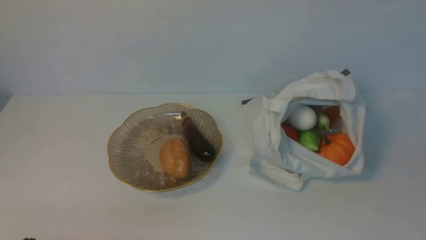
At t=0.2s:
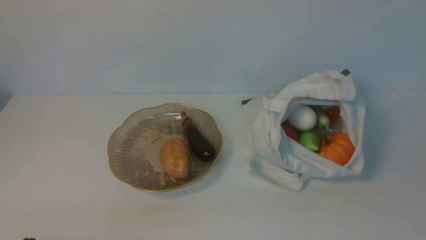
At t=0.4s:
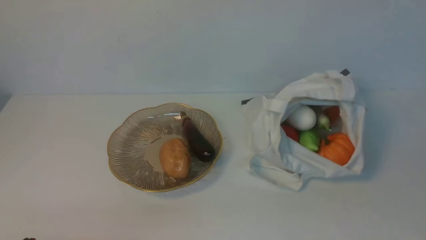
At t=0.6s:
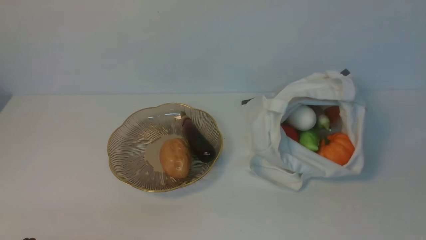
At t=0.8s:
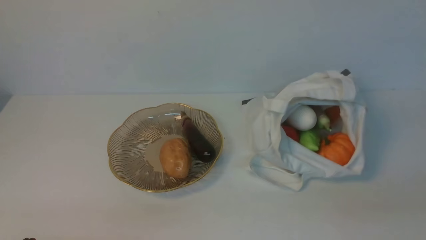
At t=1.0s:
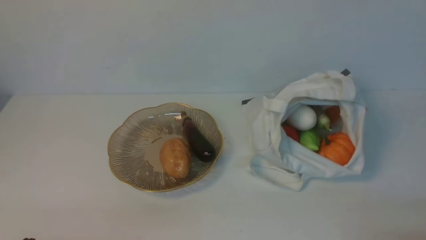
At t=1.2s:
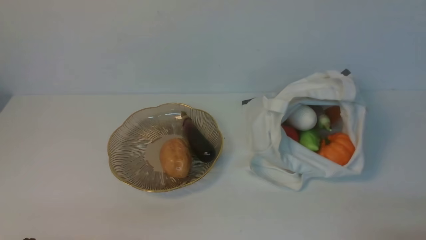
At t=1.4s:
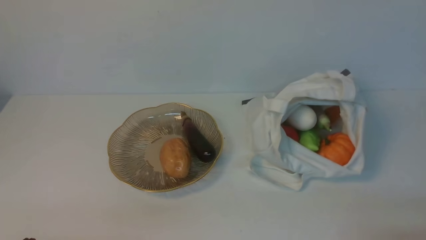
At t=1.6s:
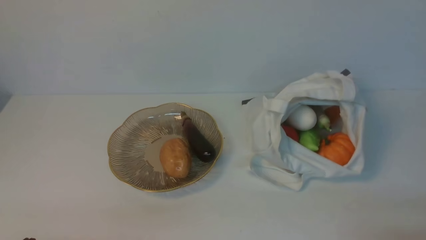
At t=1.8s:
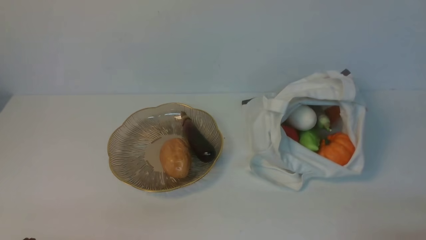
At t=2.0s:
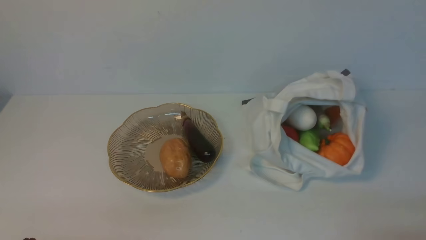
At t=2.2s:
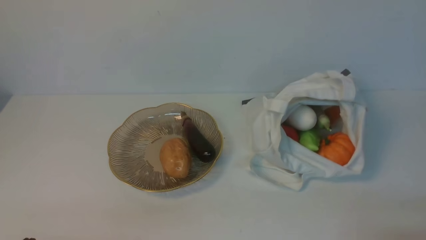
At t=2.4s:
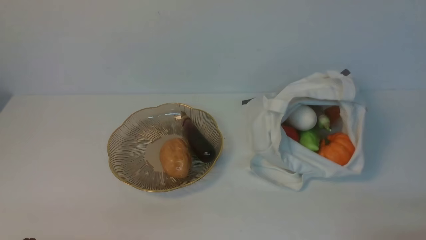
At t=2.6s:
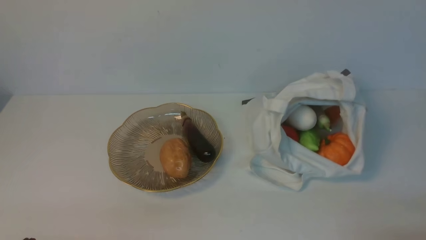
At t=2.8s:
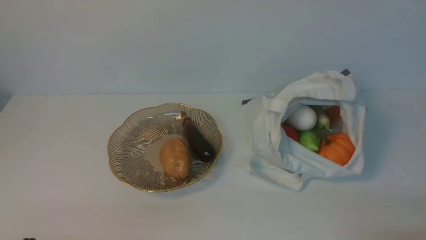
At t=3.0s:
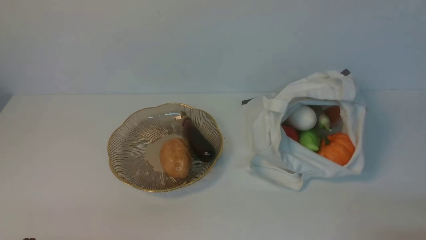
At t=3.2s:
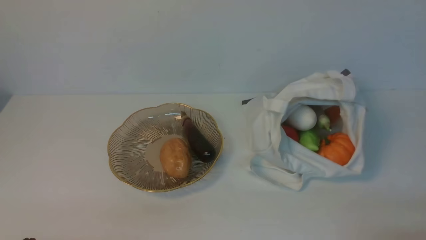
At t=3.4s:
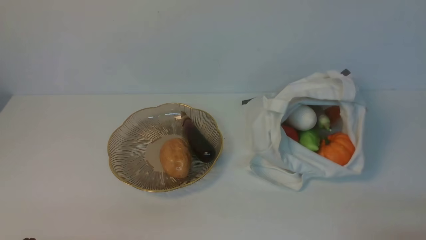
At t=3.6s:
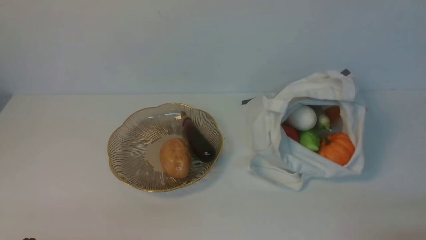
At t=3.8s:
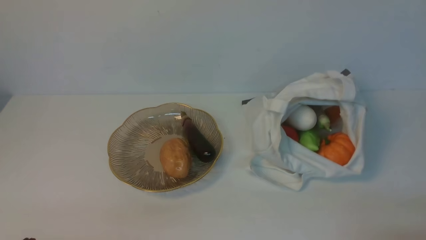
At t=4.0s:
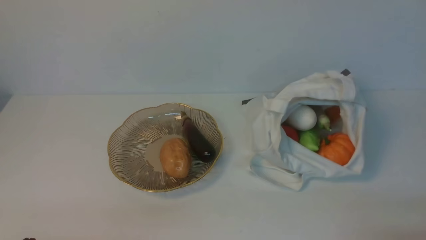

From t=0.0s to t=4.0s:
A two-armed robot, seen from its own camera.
Task of the whole recording: take vegetables from cloth bag on white table place on plate.
From t=1.4s to t=4.0s: Neither gripper changes place.

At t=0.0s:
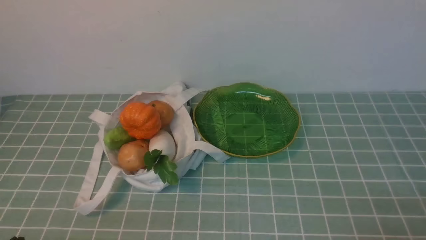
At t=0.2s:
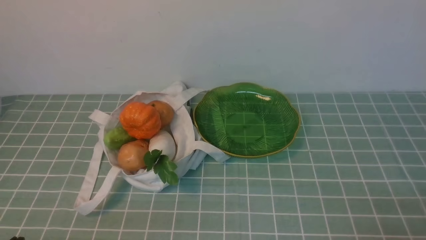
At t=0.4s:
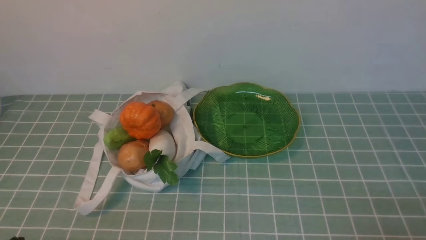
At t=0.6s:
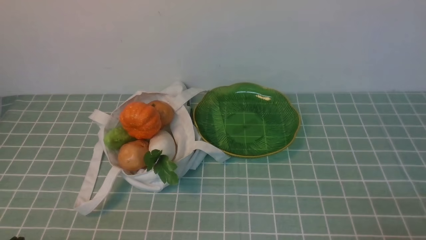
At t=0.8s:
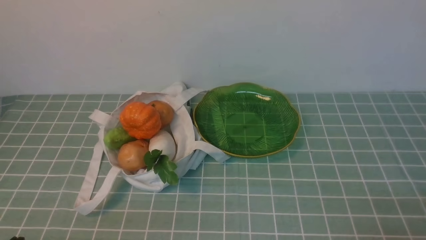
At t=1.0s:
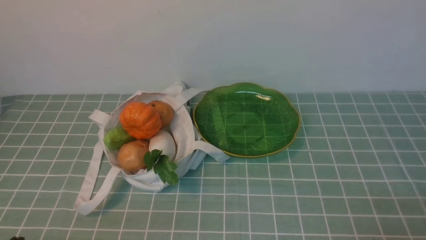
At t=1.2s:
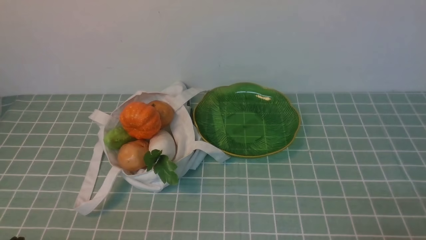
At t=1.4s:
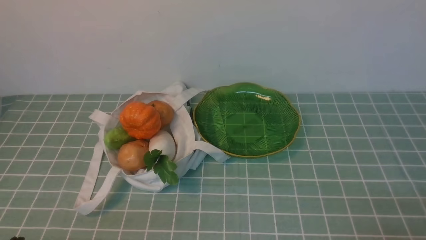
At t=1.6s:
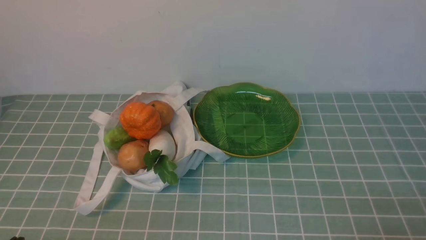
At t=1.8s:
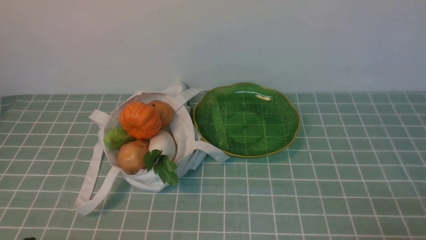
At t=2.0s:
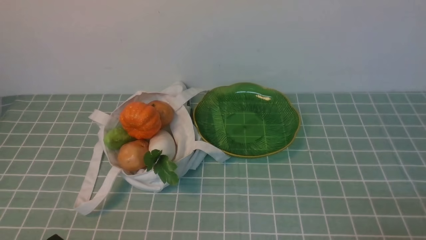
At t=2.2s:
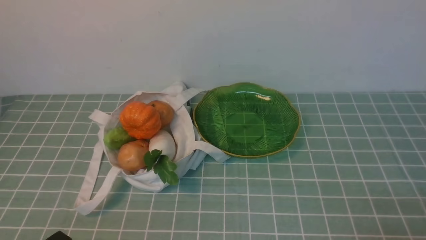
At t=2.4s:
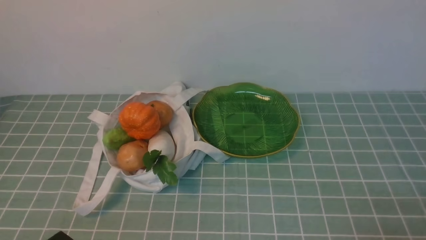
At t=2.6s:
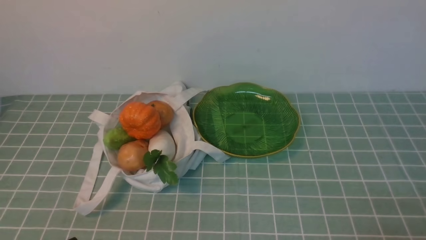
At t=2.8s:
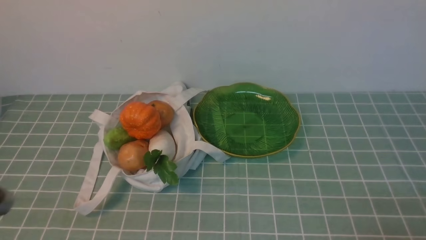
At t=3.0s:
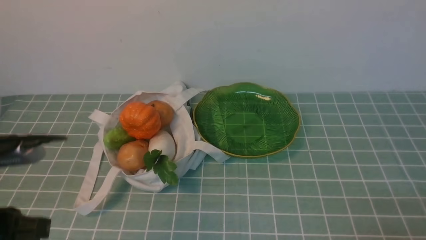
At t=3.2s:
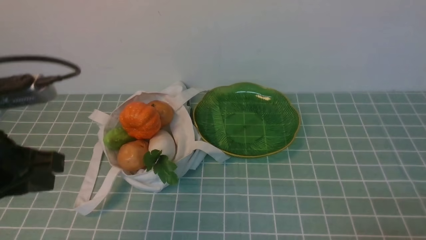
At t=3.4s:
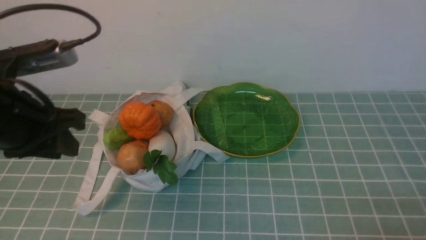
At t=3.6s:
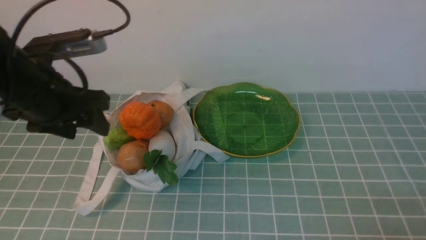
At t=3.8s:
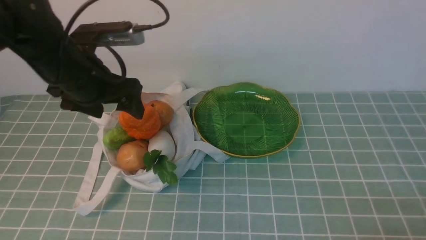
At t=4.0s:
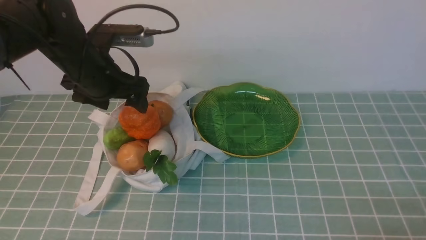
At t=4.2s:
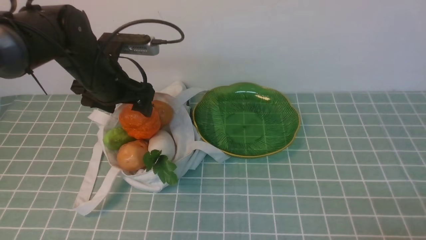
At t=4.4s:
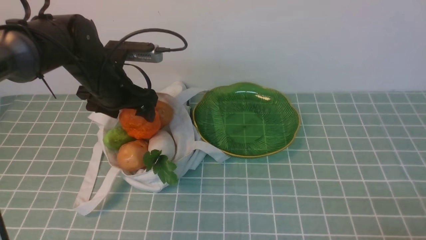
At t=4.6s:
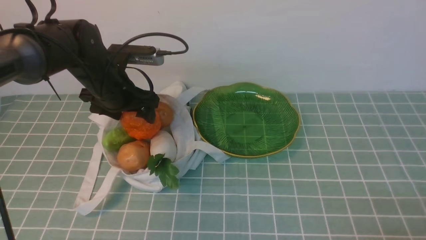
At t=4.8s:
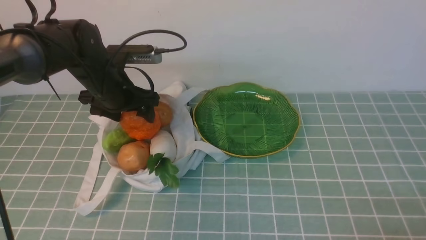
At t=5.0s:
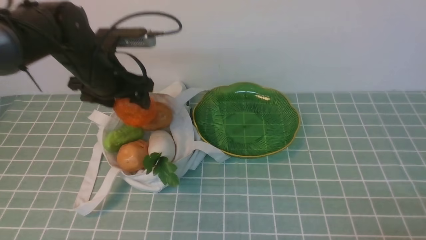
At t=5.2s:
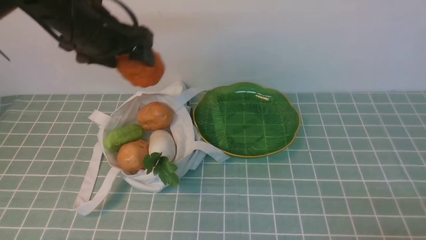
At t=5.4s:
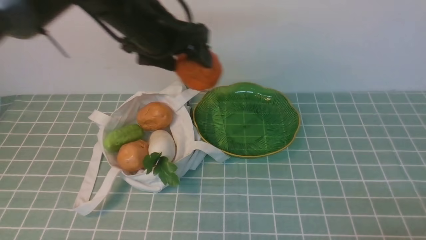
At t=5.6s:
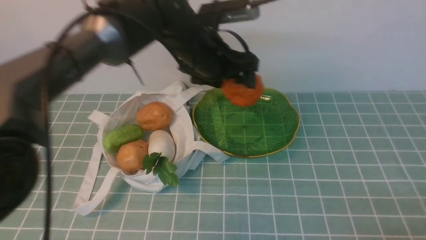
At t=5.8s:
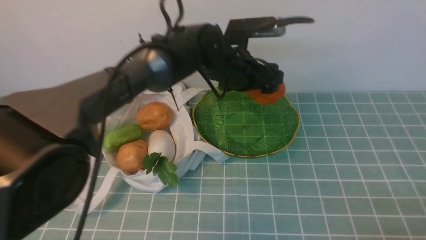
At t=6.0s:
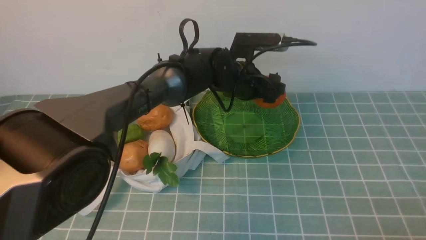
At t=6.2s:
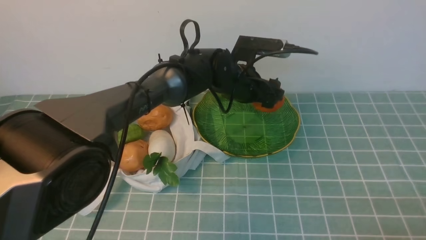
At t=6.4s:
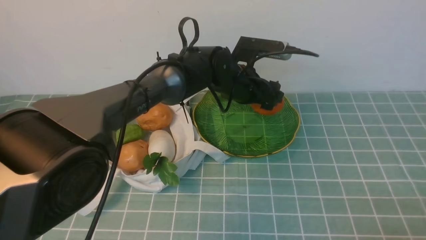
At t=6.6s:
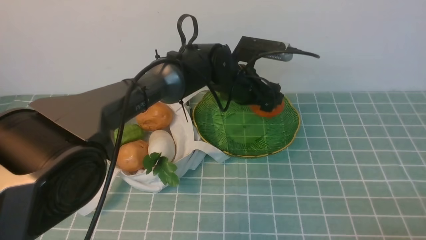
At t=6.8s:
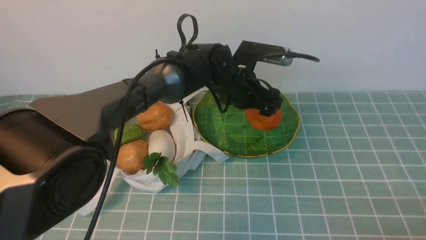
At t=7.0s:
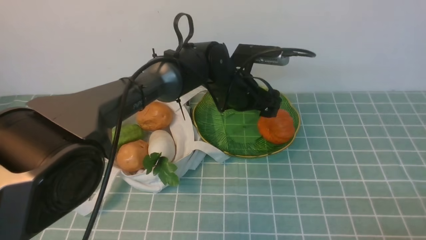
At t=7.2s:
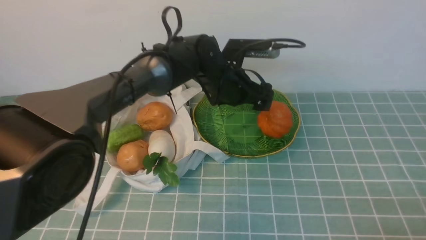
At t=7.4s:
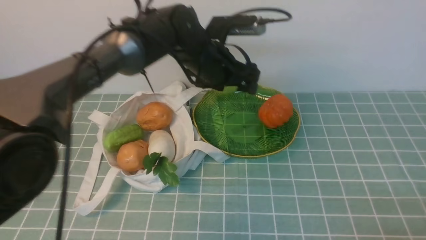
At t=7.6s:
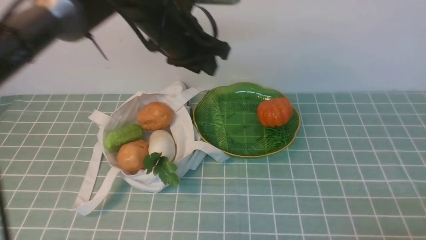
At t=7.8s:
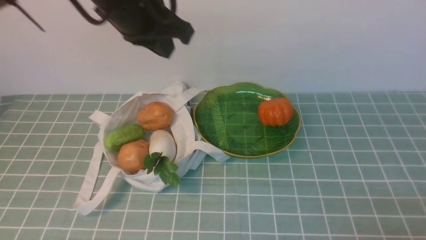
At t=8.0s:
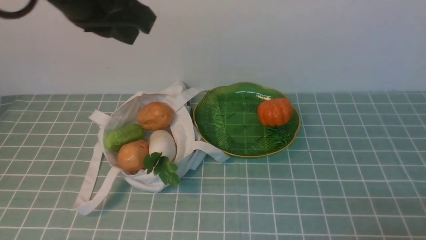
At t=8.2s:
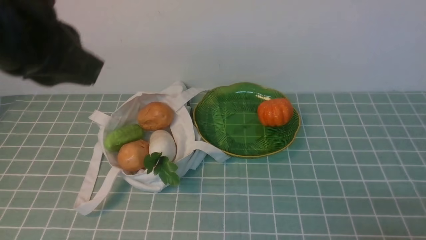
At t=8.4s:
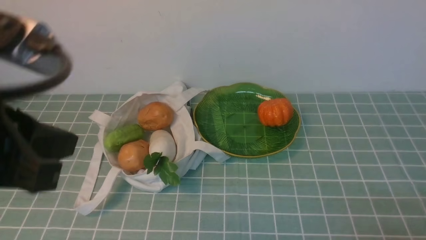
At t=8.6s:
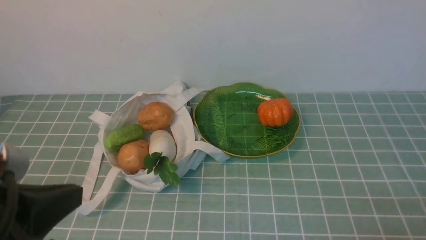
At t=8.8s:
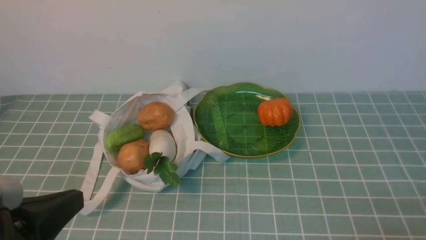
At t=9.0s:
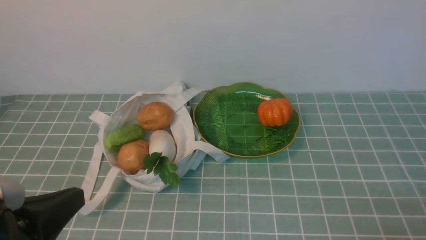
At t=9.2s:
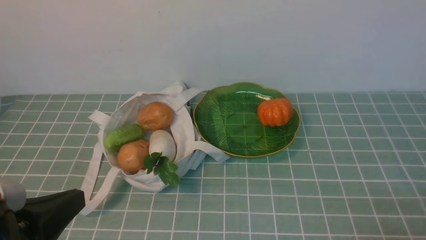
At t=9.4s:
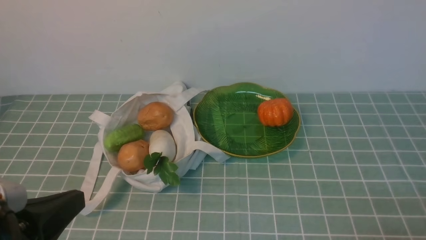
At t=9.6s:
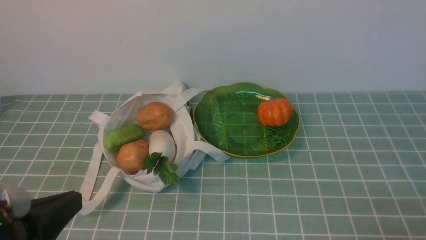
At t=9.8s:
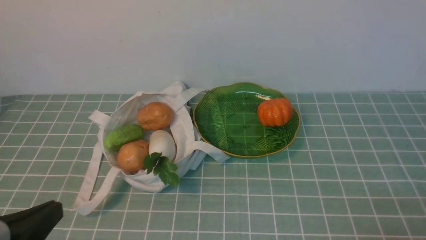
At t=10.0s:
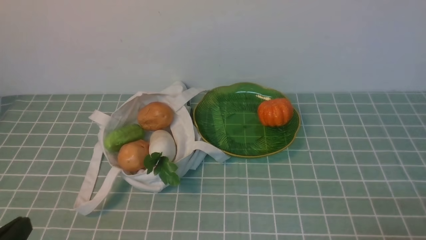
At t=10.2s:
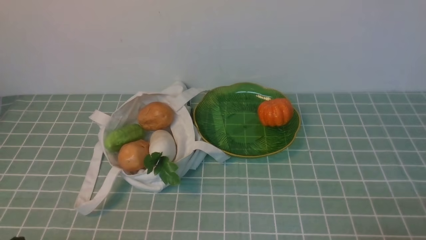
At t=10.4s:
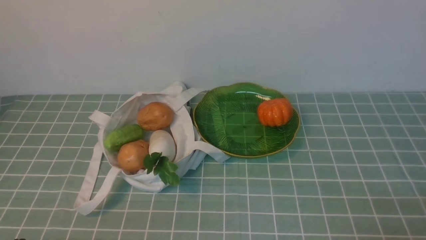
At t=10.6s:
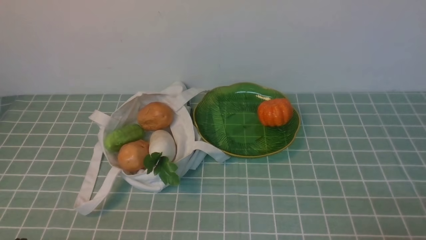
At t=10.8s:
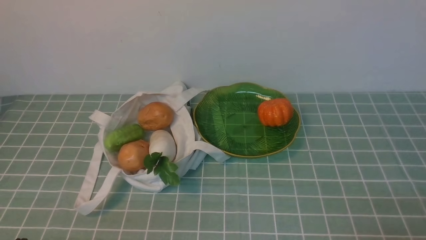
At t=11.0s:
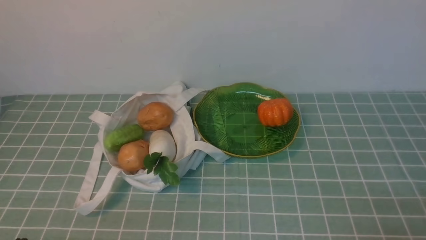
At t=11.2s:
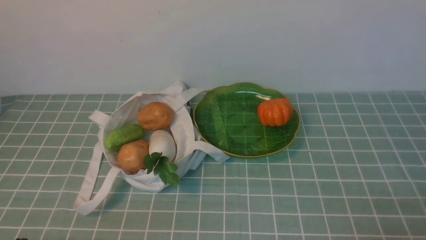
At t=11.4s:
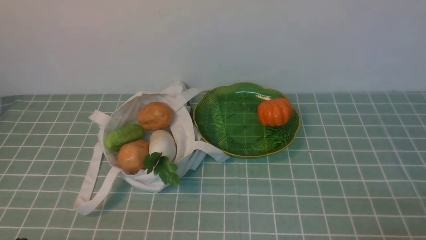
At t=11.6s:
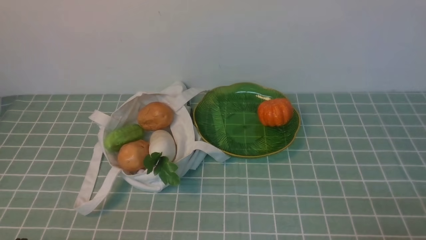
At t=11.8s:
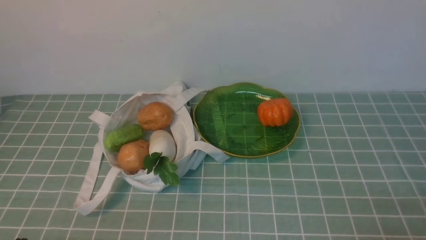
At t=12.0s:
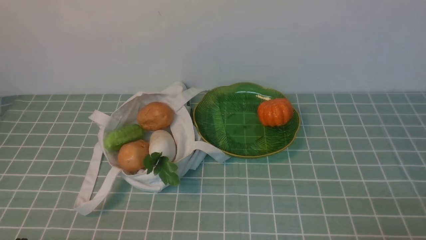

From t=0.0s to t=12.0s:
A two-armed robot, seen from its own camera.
Task of the whole recording: take vegetables from cloth bag on blue coffee tablecloth place on plate.
Step, from t=0.0s to t=4.8s: Grasp the pumpkin with left gripper.
Step, from t=5.0s to t=7.0s: Place the pumpkin on the plate with left gripper.
From t=1.6s to t=3.0s: The left gripper travels upward by approximately 10 cm.
From t=3.0s to t=4.4s: The left gripper travels forward by about 30 cm, and opens.
From t=4.4s to t=6.0s: The left gripper shifts approximately 20 cm to the right.
From t=6.0s to t=7.6s: The left gripper moves upward and to the left, some 10 cm, and closes.
From t=7.6s to t=9.0s: The left gripper heads backward and to the left, covering roughly 35 cm, and closes its fingers.
From t=9.0s to t=10.4s: The left gripper heads downward, covering some 10 cm.
From t=10.4s to t=12.0s: Both grippers stay put.
